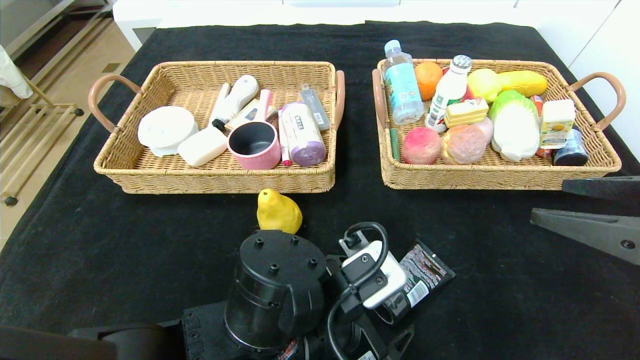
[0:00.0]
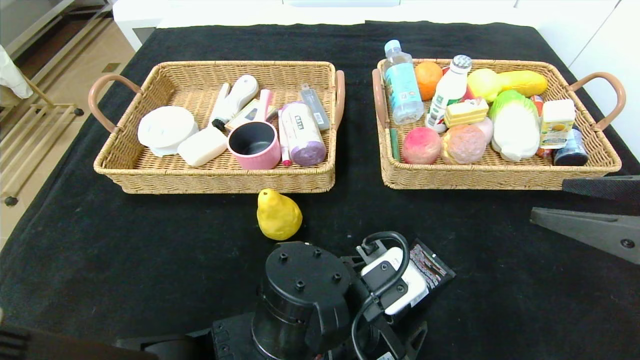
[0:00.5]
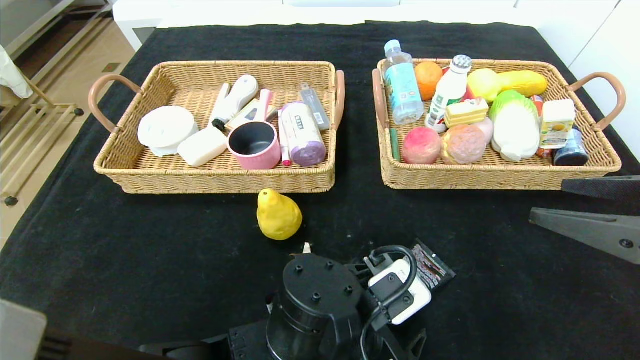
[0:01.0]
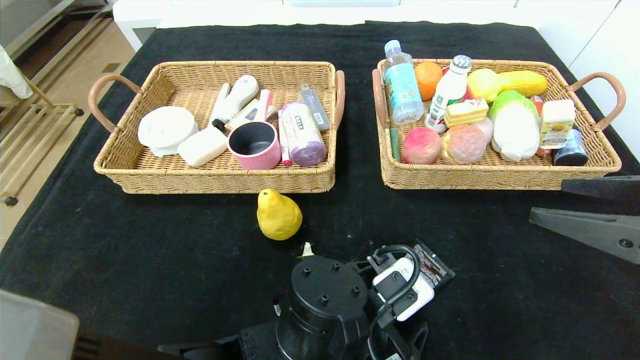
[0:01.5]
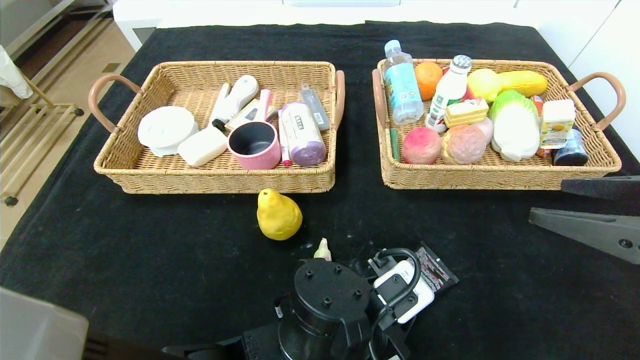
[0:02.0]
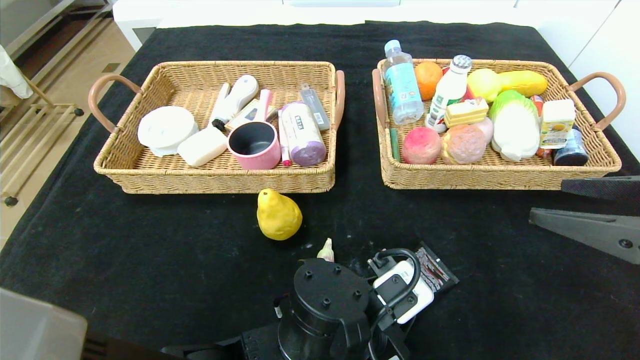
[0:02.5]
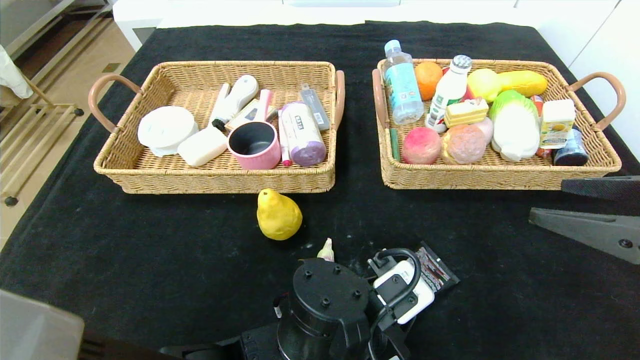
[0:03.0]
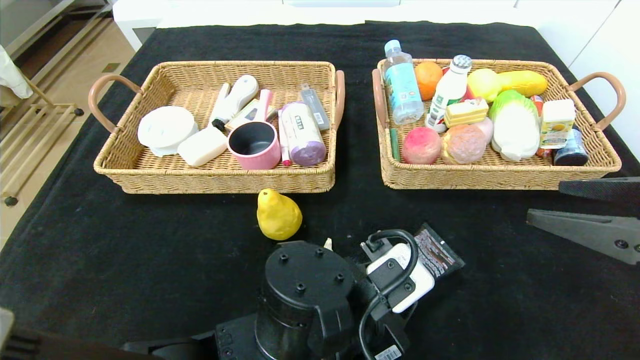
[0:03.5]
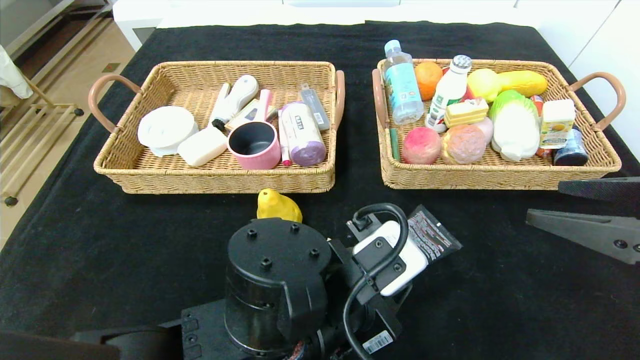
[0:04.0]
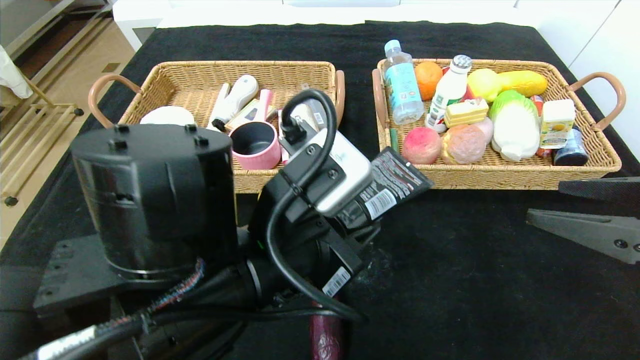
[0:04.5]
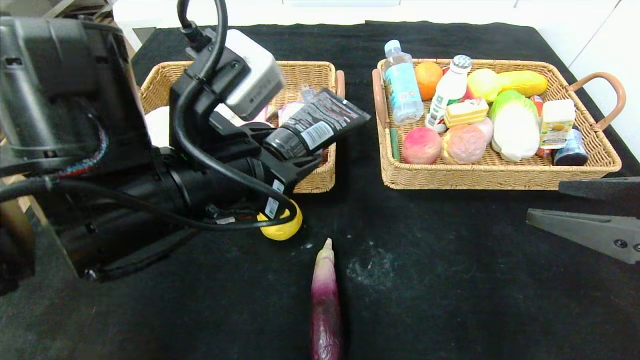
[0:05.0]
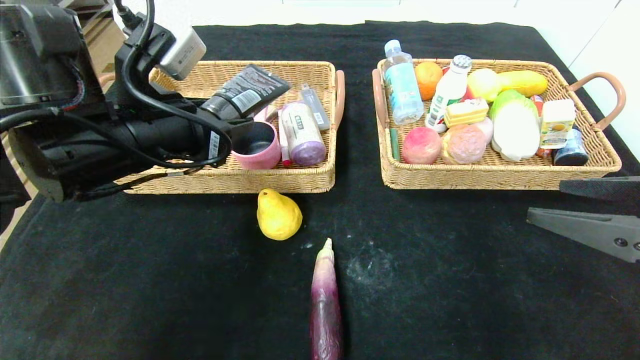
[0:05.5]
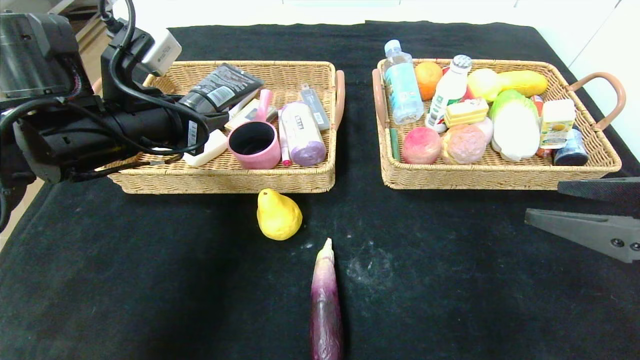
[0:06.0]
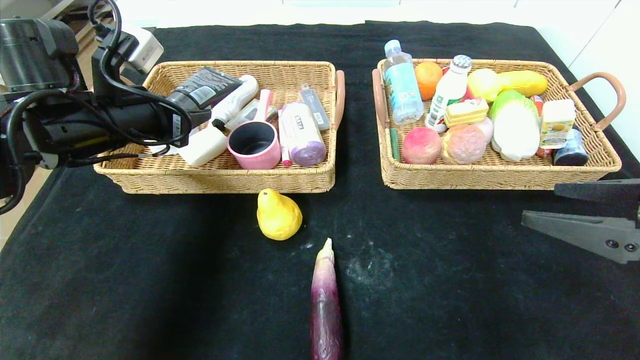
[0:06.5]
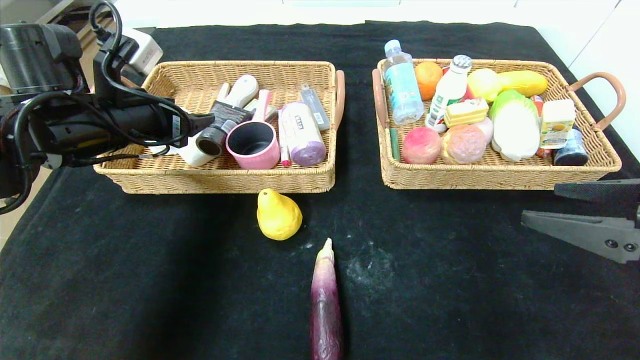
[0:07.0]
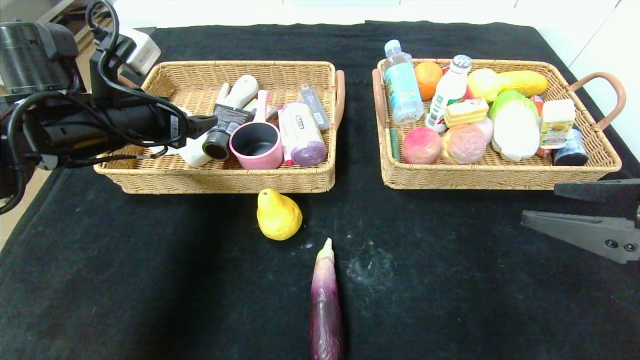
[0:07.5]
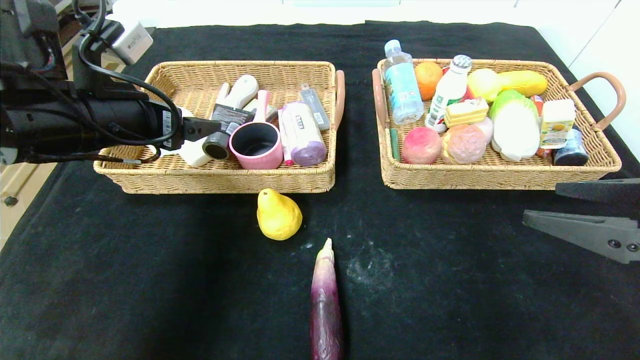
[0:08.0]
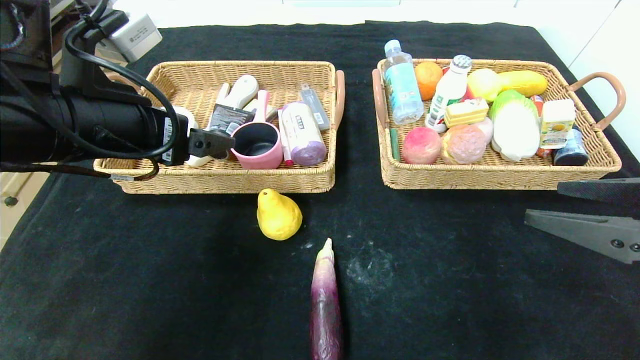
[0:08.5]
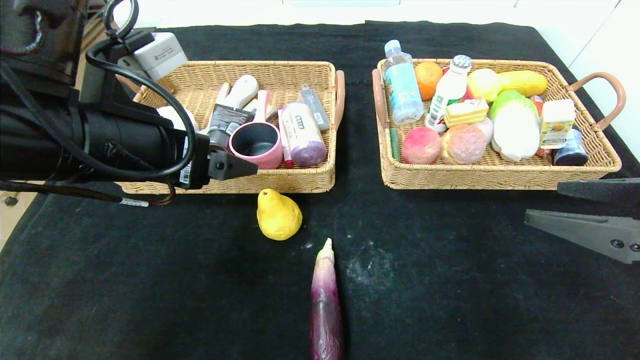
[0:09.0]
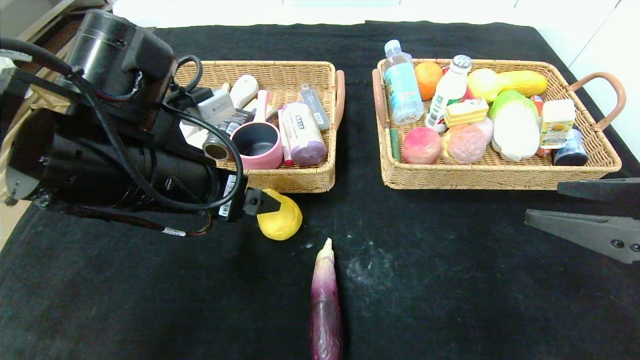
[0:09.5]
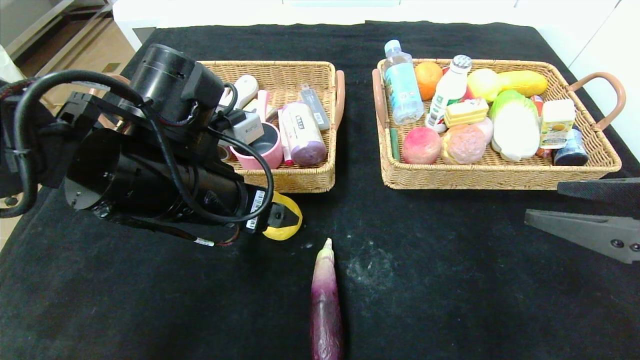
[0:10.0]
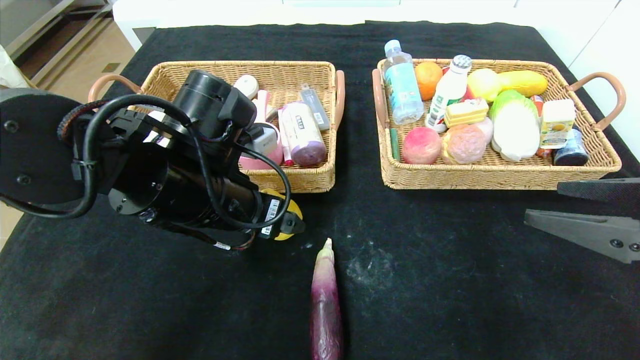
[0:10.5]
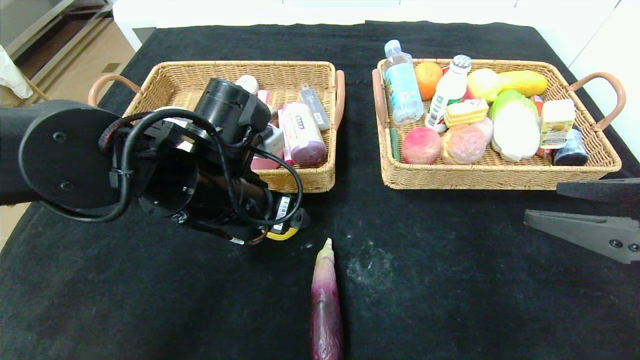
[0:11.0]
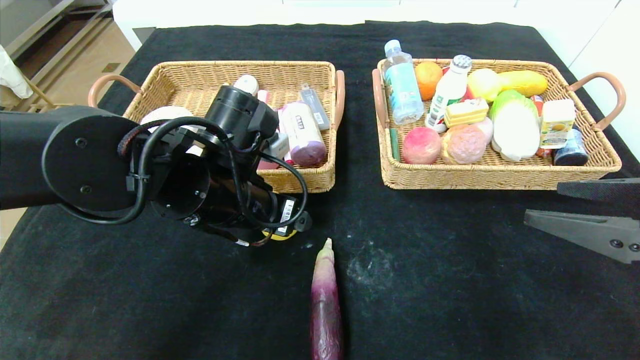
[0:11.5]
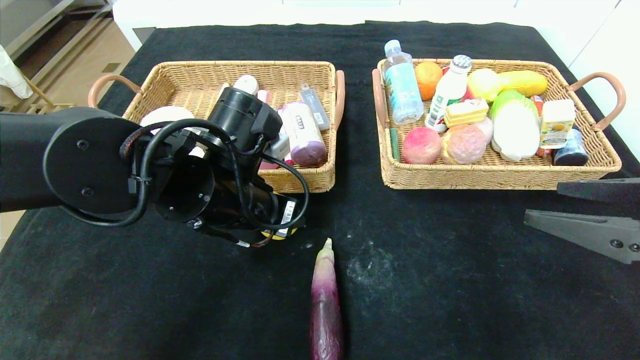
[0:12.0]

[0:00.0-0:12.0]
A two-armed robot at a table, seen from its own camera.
Step, 0:00.0 to 0:09.0: Pick up the soft cleanser and put it in the left basket.
0:00.0 to 0:02.0: The left gripper closes.
0:02.0 to 0:04.0: The left gripper travels upward by approximately 5 cm.
0:04.0 to 0:06.0: The left gripper travels to the left, forward and upward by some 25 cm.
0:06.0 to 0:08.0: The left gripper opens.
0:08.0 to 0:10.0: The left gripper goes some 10 cm to the right and downward.
0:10.0 to 0:12.0: The left gripper closes up.

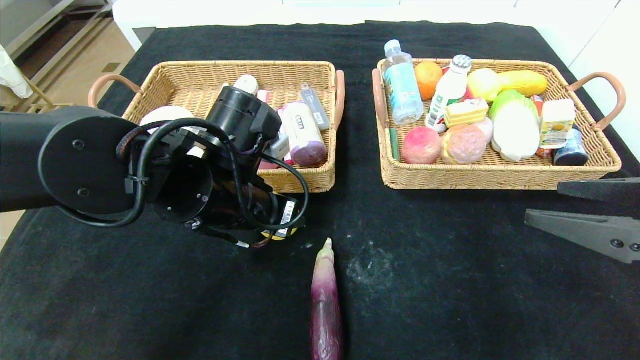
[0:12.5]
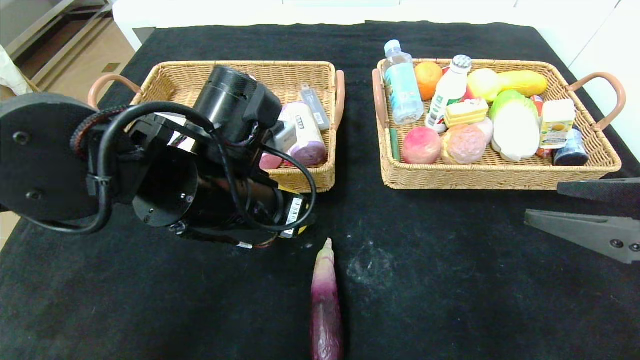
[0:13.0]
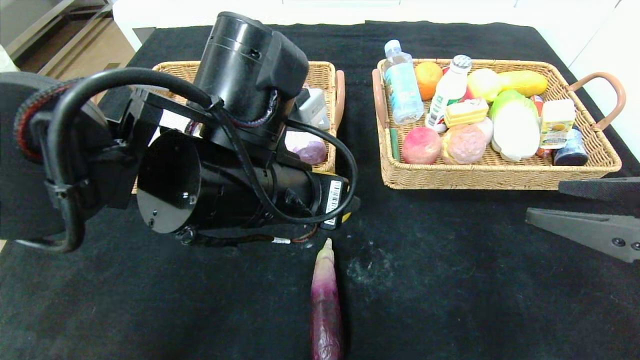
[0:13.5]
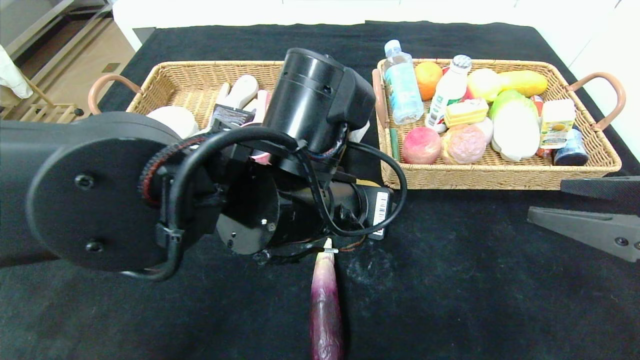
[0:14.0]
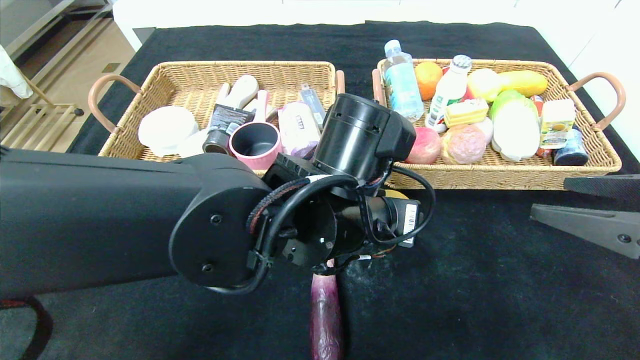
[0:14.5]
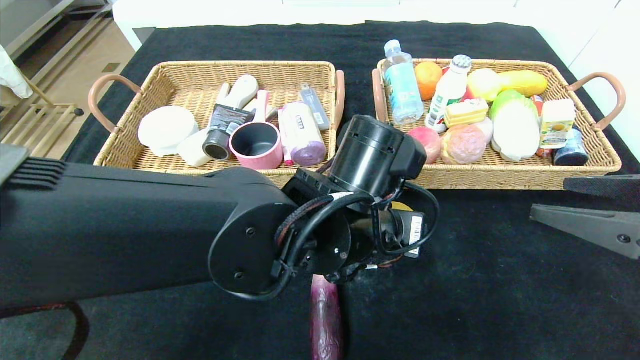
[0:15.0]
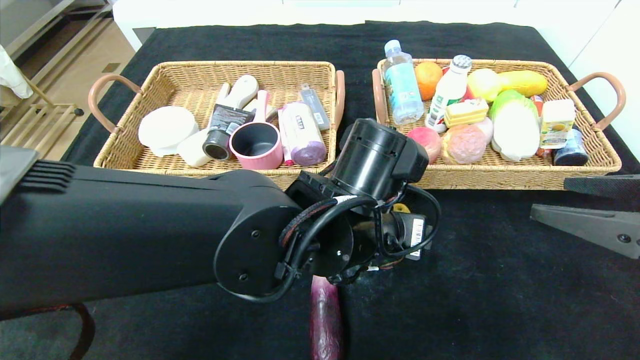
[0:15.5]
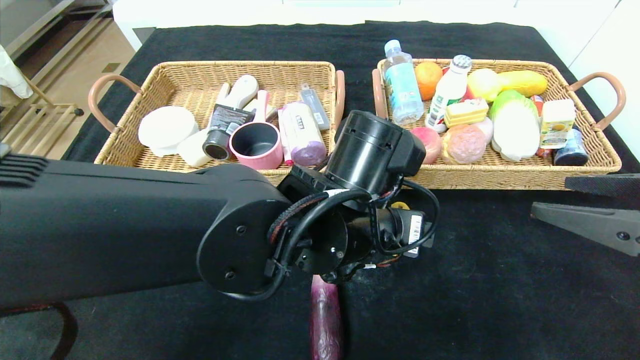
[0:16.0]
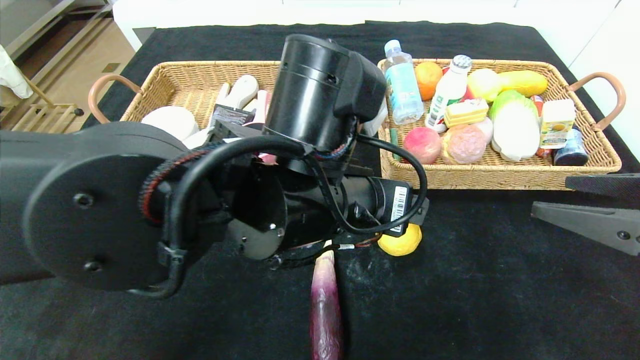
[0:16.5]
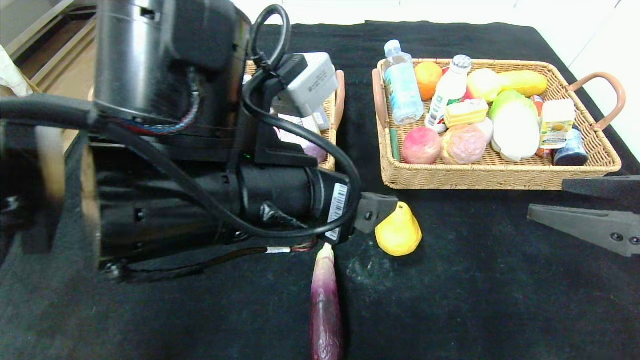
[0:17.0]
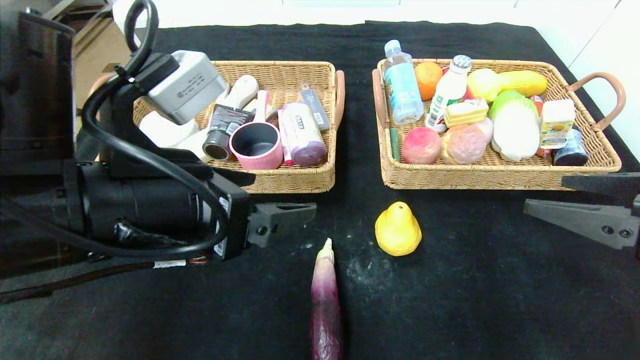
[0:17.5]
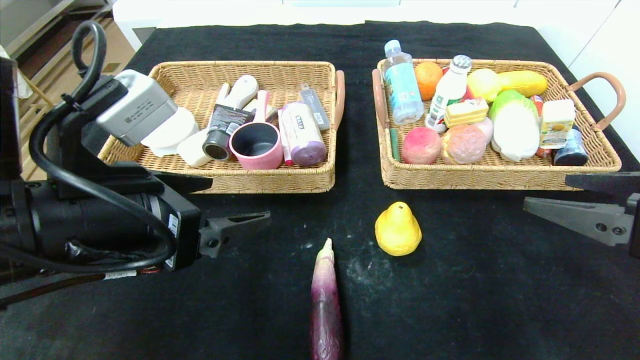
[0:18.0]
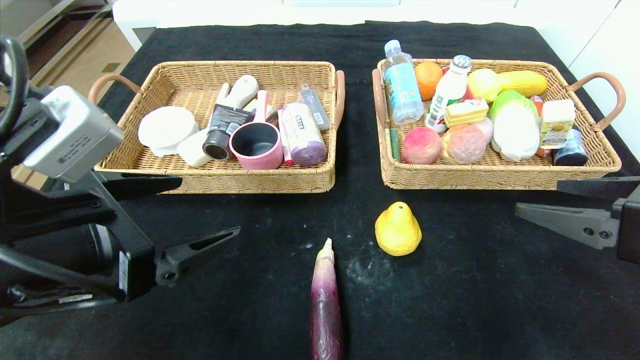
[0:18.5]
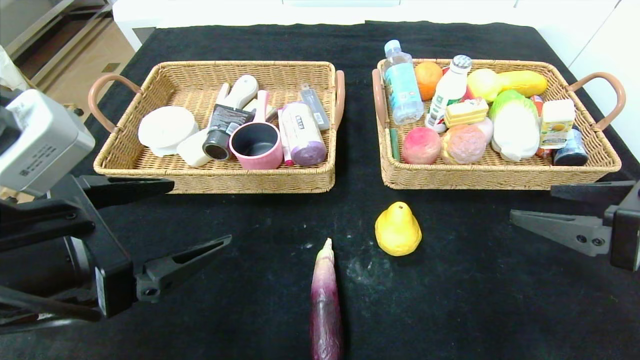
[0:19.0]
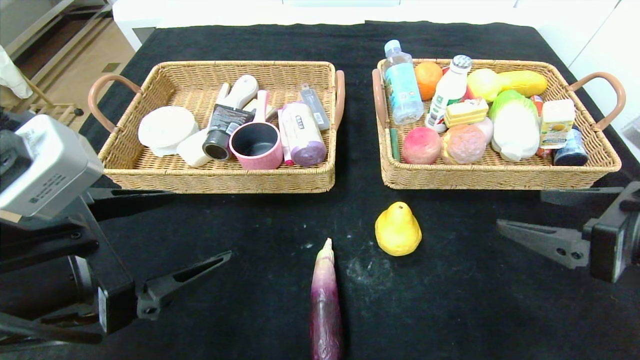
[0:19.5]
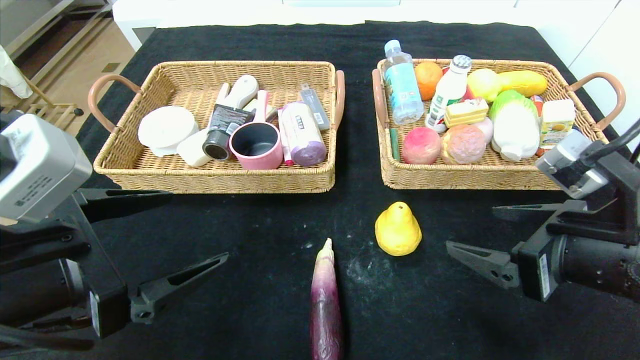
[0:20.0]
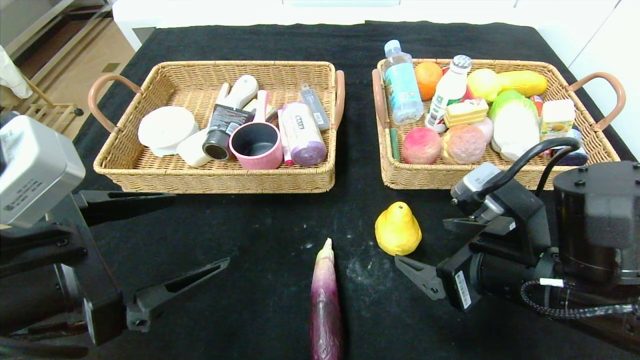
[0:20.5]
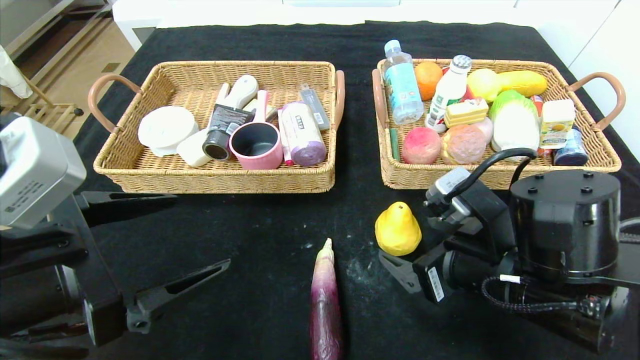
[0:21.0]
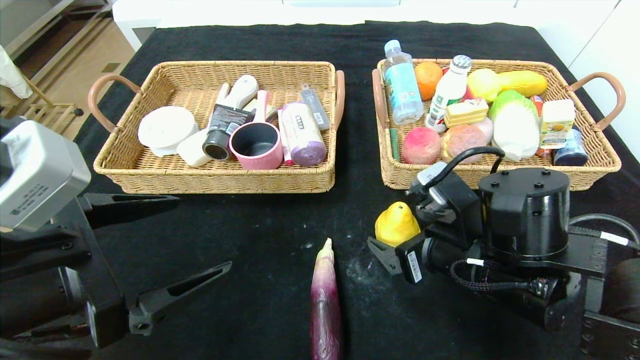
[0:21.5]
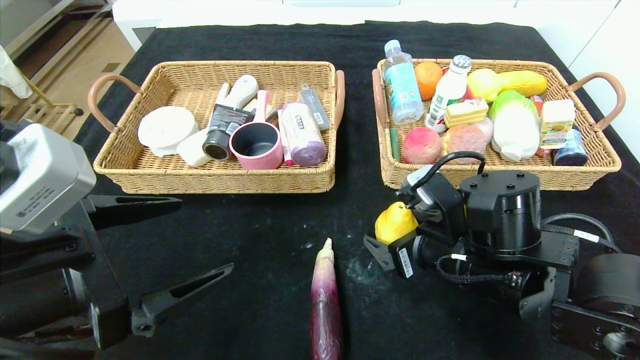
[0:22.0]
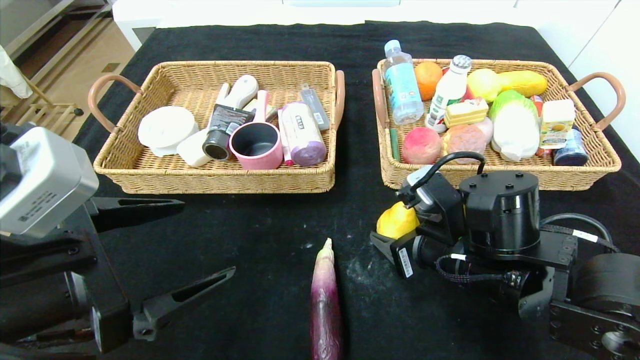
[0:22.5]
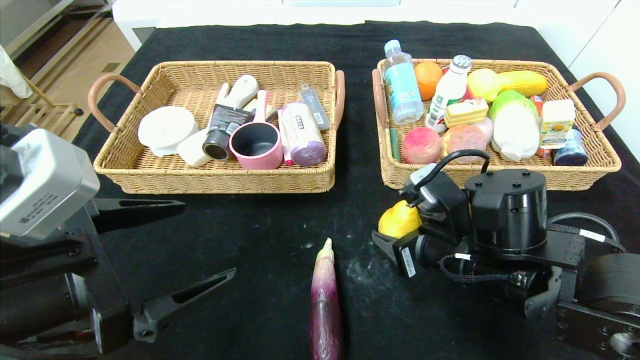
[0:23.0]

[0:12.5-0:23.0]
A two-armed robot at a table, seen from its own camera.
Step, 0:12.5 to 0:17.0: Place the pear in the center of the table.
0:12.5 to 0:14.5: The left gripper goes approximately 10 cm to the right.
0:14.5 to 0:16.5: The left gripper ends up some 5 cm from where it was, and opens.
0:16.5 to 0:19.0: The left gripper goes some 20 cm to the left.
0:19.0 to 0:21.0: The right gripper heads to the left and downward, covering about 15 cm.
0:21.0 to 0:23.0: The right gripper closes up.
